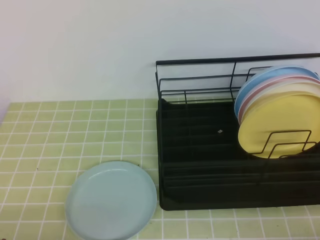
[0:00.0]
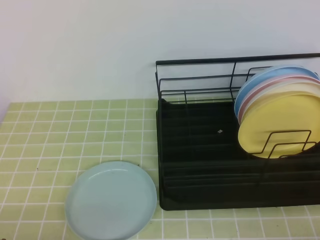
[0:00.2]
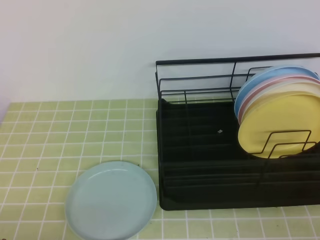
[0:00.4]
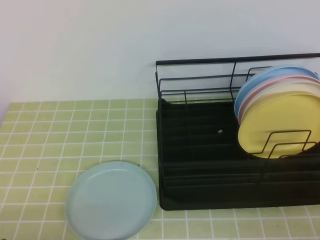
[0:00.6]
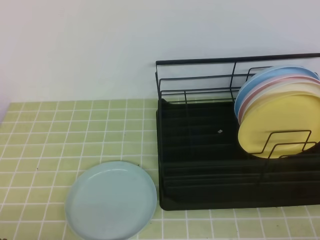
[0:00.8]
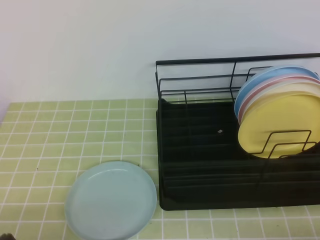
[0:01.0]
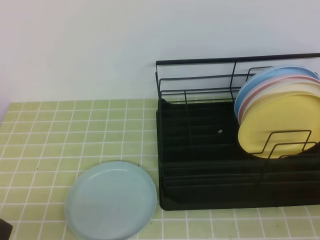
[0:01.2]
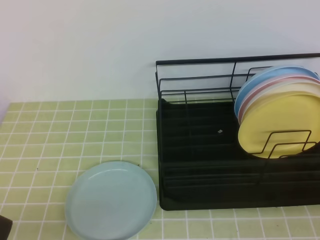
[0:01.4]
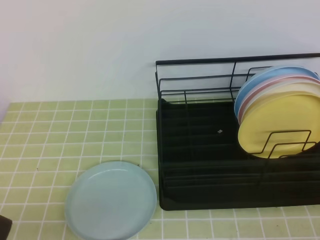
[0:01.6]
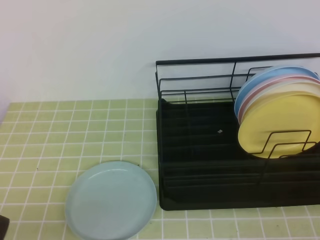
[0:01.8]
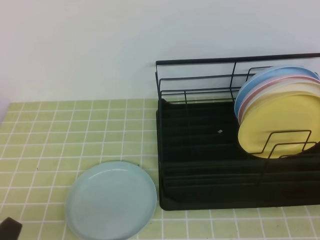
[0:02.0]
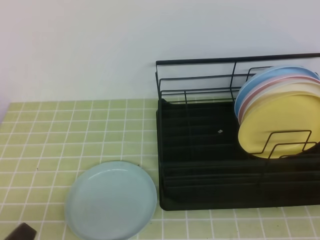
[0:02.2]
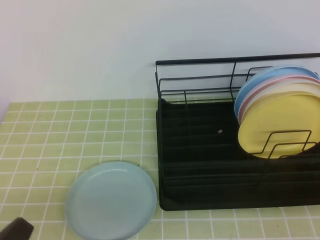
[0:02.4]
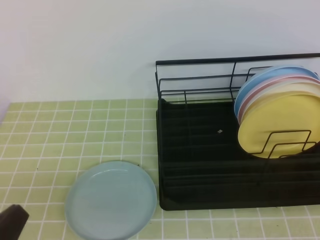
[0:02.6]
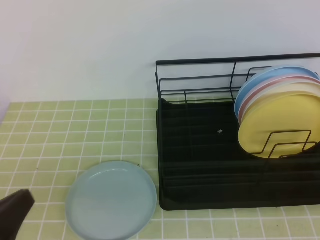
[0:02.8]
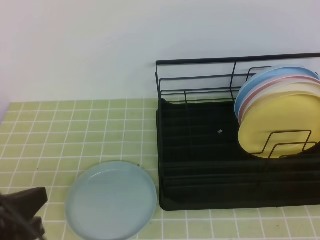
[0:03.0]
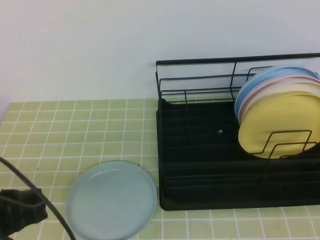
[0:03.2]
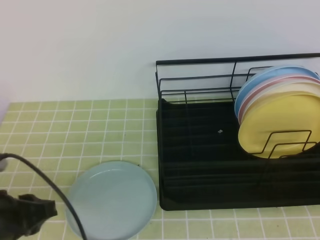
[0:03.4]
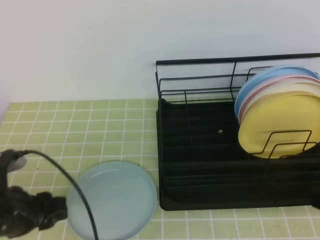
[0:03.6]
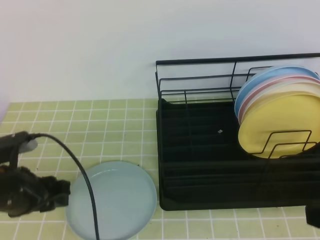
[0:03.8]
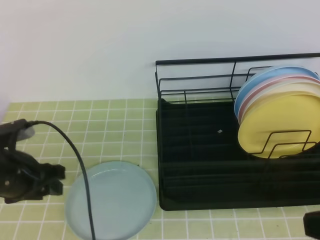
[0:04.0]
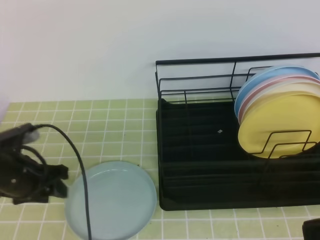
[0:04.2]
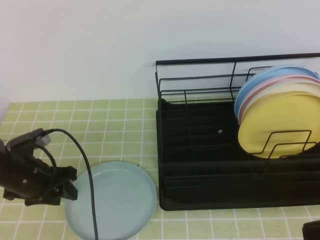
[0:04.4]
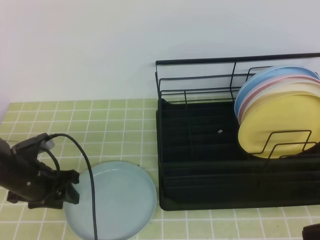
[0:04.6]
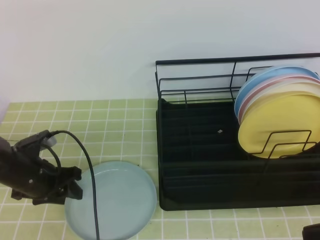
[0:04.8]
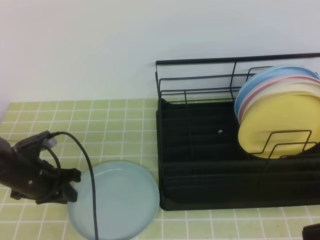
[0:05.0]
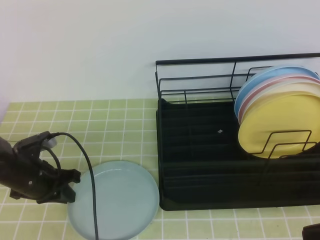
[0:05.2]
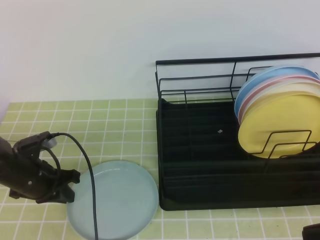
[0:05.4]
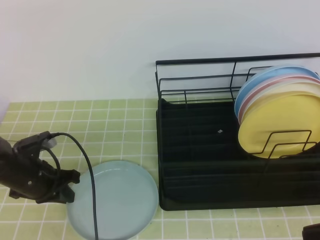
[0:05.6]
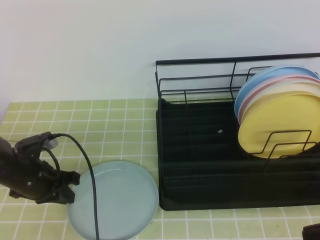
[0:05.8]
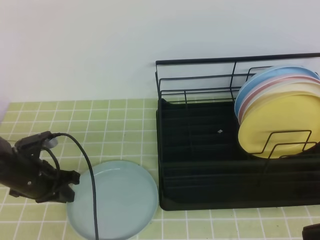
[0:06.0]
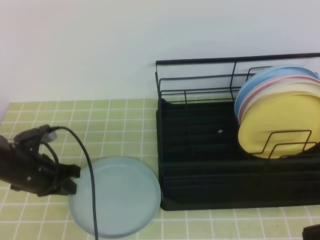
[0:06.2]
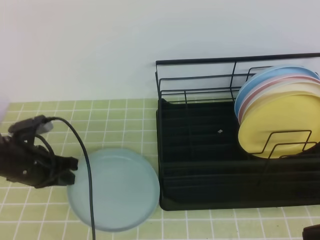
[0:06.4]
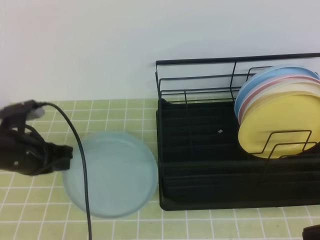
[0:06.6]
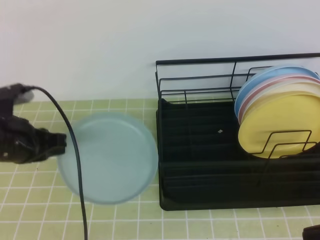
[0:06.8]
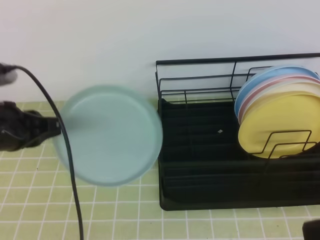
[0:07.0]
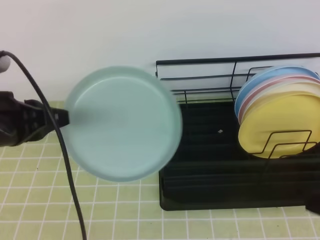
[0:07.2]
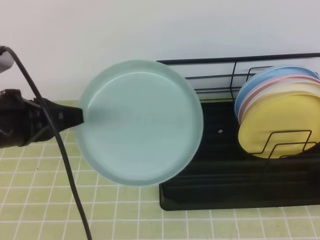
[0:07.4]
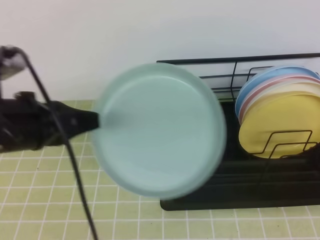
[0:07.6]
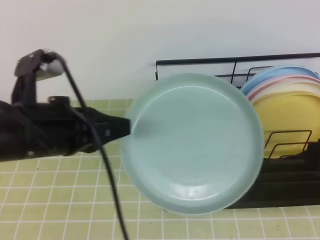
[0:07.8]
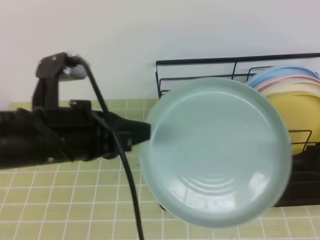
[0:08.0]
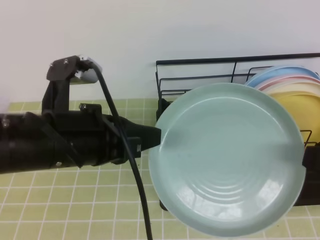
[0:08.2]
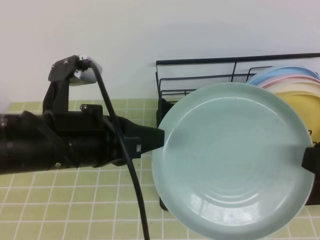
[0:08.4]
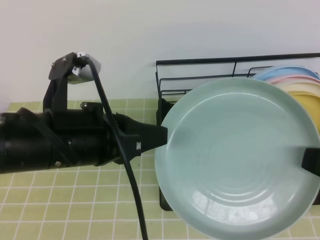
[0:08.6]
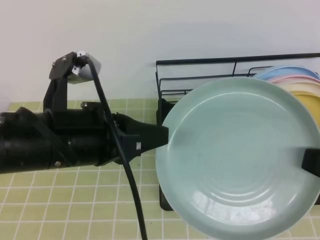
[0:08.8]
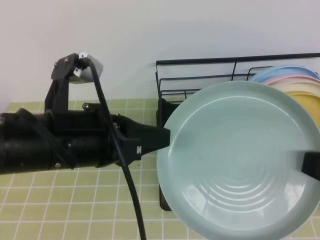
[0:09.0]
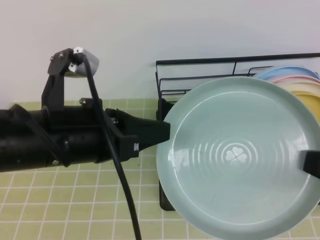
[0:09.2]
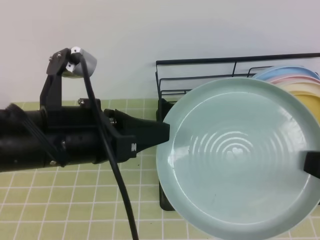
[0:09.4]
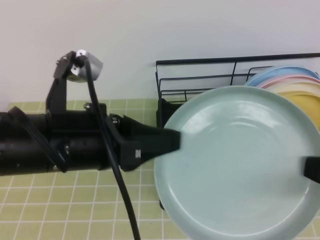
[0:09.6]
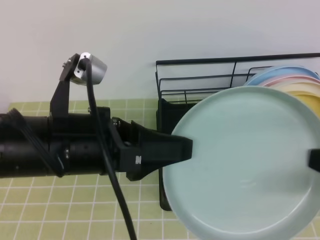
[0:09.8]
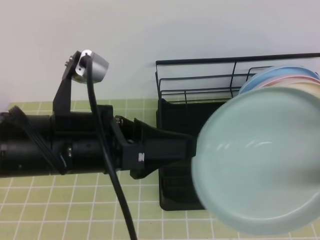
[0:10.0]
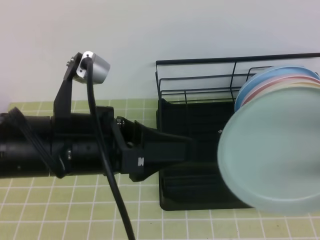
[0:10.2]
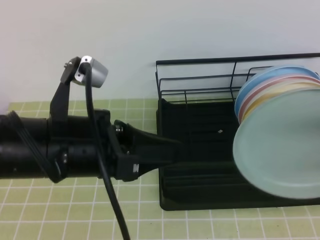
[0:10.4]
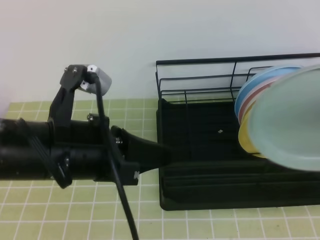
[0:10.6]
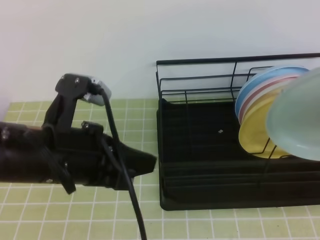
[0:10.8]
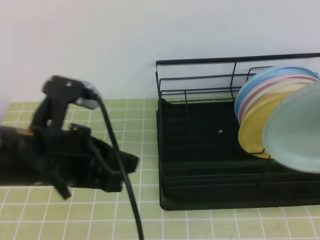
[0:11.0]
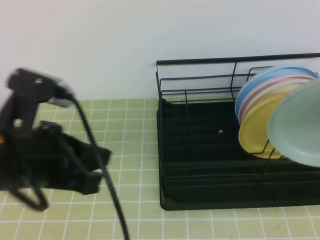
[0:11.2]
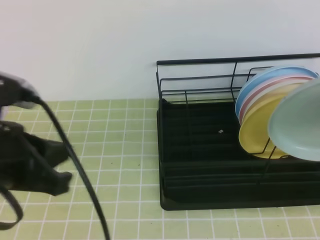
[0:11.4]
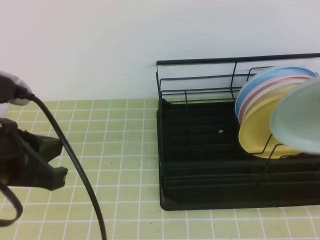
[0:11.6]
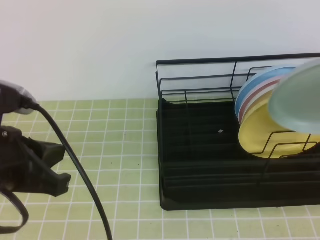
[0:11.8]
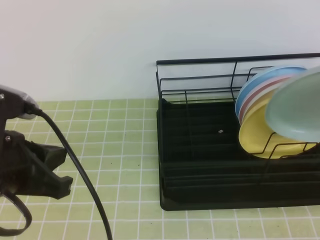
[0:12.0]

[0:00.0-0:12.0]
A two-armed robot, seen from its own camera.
0:01.6 to 0:03.0: The left gripper heads upward and forward, covering about 10 cm; the right gripper shifts about 15 cm upward, forward and to the left.
0:03.0 to 0:04.4: The left gripper moves forward and downward, about 20 cm, and opens.
0:04.4 to 0:06.0: The left gripper closes its fingers.
0:06.0 to 0:07.6: The left gripper moves upward and backward, some 20 cm. Meanwhile the right gripper opens.
0:07.6 to 0:09.0: The left gripper goes approximately 5 cm to the right.
0:09.0 to 0:10.4: The right gripper closes up, while the left gripper opens.
0:10.4 to 0:12.0: The left gripper is displaced to the left by some 5 cm, and closes its fingers. Meanwhile the right gripper shifts roughly 5 cm forward.

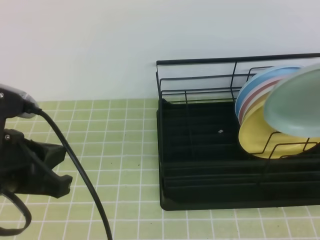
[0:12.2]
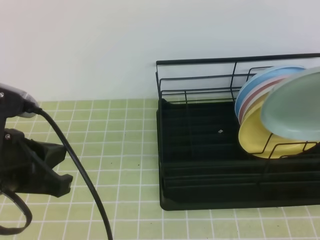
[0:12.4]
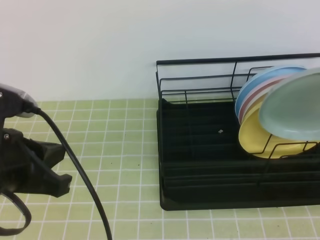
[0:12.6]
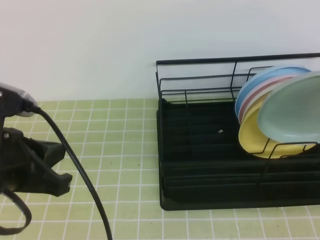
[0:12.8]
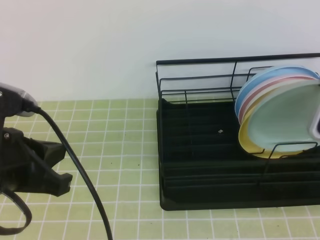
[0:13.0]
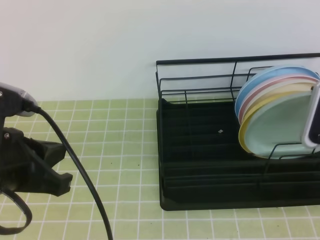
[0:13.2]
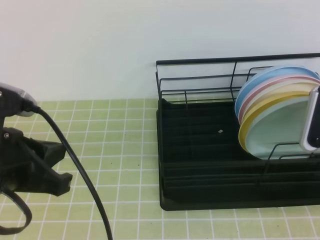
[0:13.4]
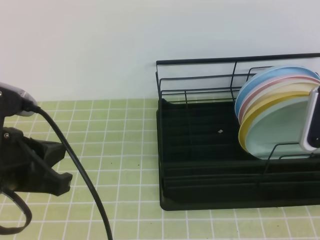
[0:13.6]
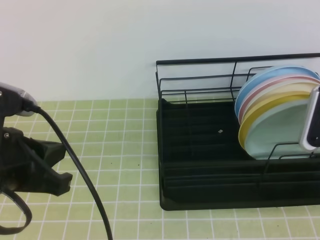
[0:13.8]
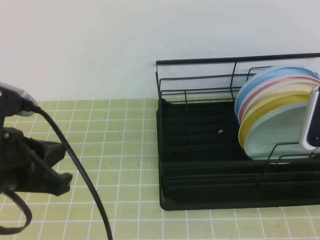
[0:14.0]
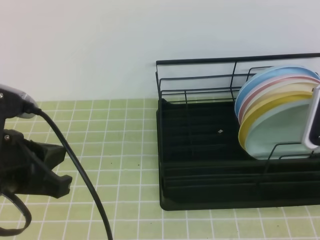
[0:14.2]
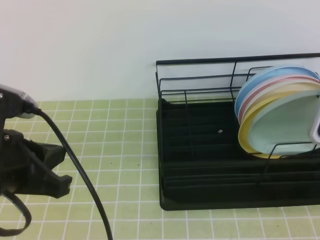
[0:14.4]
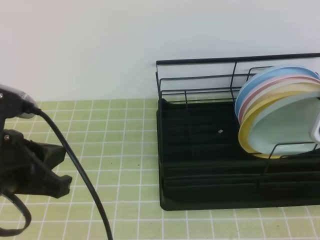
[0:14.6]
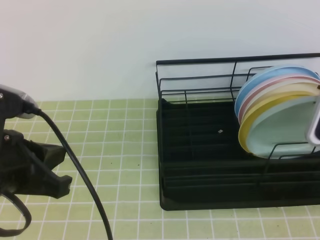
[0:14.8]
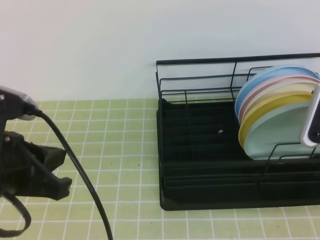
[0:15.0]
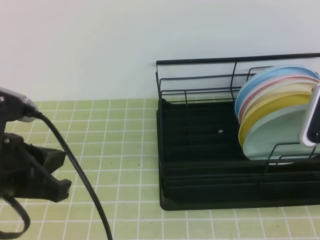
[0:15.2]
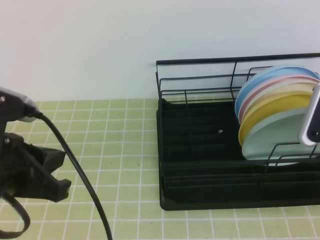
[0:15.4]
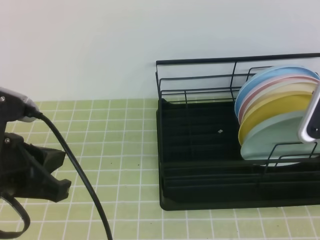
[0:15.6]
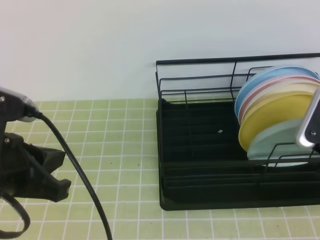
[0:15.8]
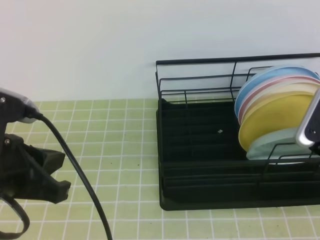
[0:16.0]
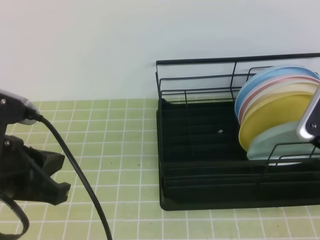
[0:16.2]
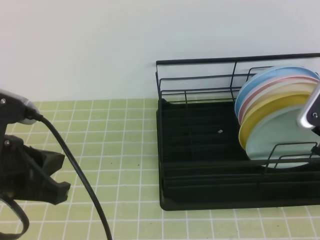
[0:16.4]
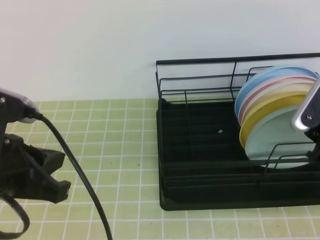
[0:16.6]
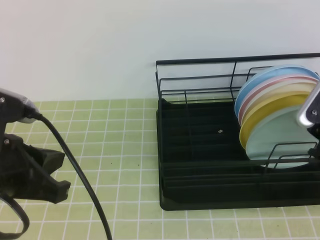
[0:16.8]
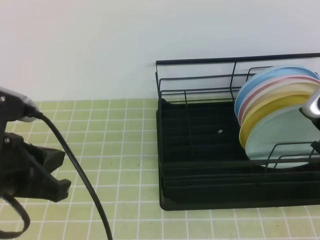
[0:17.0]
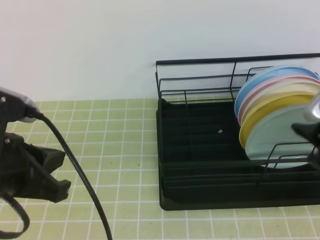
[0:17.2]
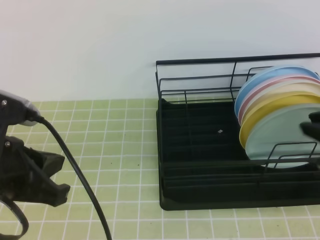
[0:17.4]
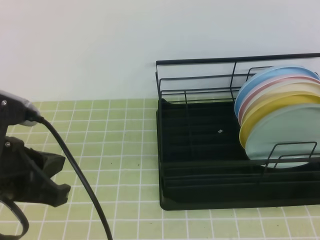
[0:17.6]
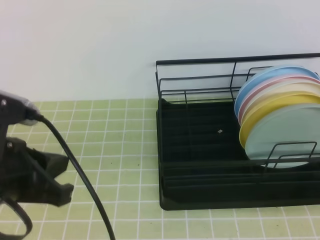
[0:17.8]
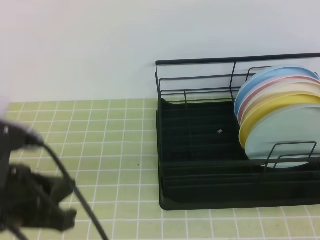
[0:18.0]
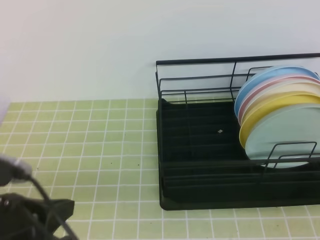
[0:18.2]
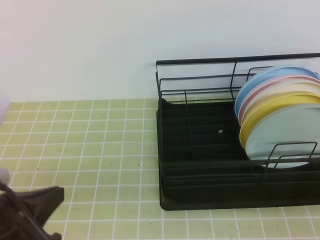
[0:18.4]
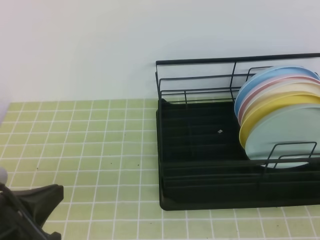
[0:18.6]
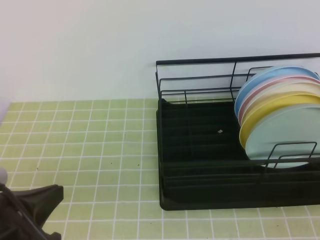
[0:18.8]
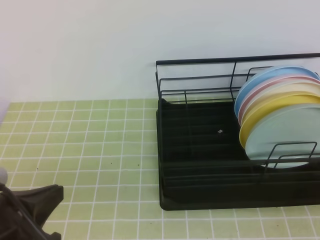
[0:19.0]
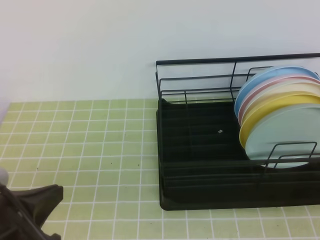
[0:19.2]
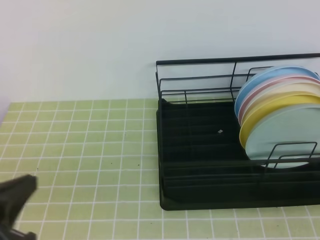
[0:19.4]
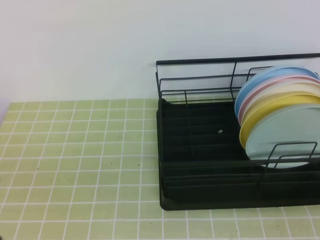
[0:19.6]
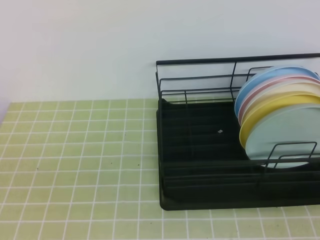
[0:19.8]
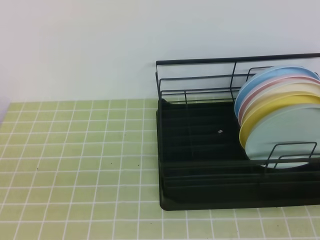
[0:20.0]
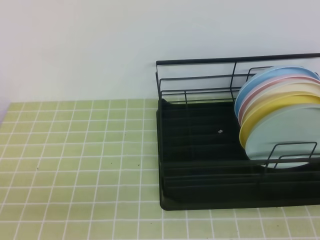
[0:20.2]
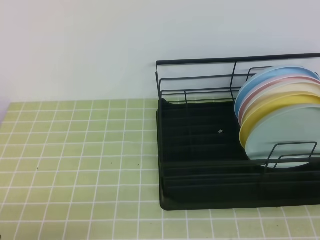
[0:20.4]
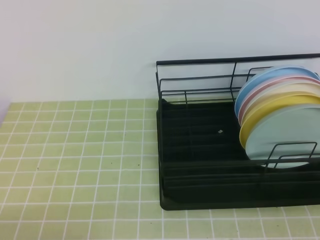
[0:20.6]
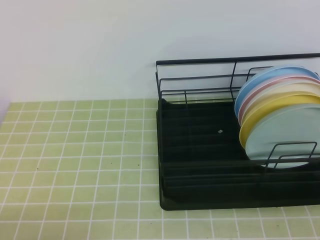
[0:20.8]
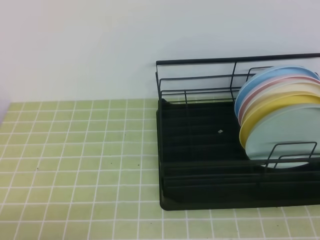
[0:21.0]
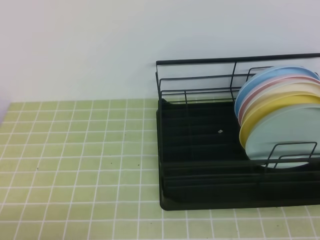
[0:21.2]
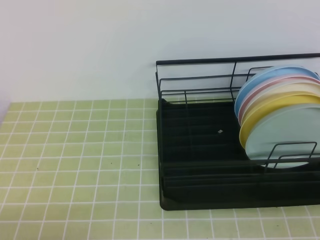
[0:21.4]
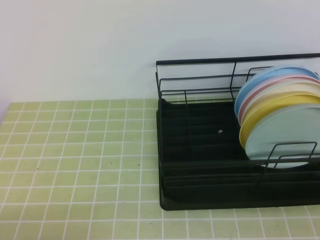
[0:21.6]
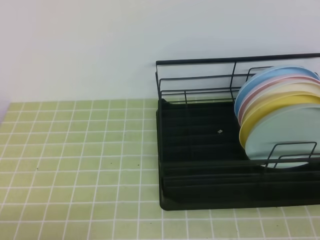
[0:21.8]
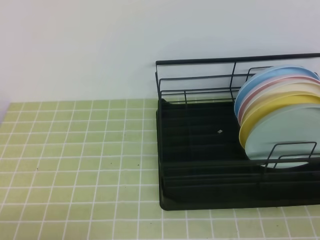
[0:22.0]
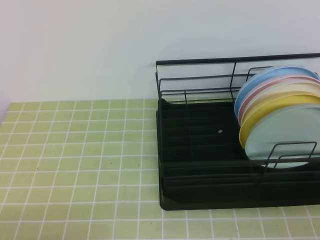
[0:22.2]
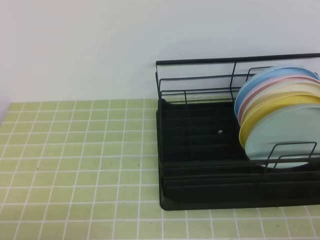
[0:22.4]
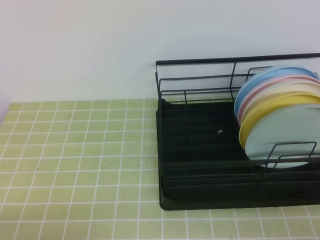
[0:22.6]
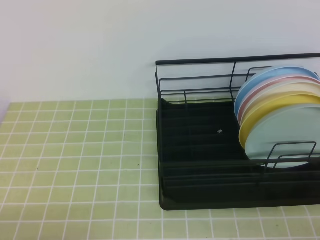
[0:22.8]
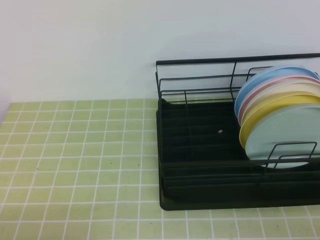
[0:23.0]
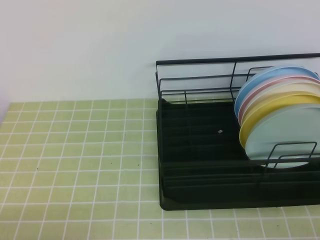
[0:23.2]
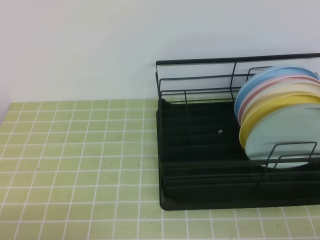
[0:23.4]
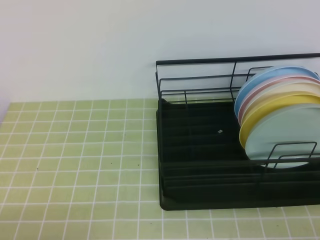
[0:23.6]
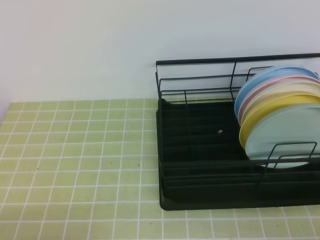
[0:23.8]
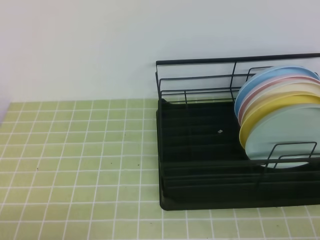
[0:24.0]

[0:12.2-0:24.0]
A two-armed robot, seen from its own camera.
0:12.2 to 0:13.6: The right gripper heads downward, covering some 5 cm.
0:13.6 to 0:15.2: The right gripper opens.
0:16.6 to 0:18.2: The right gripper shifts approximately 25 cm backward, and closes. The left gripper changes place by roughly 5 cm.
0:18.2 to 0:19.6: The left gripper ends up about 5 cm from where it was.
0:22.6 to 0:24.0: Both grippers stay put.
